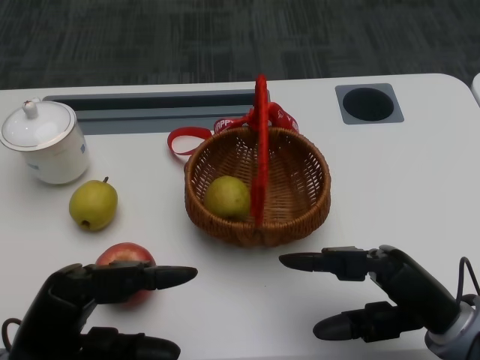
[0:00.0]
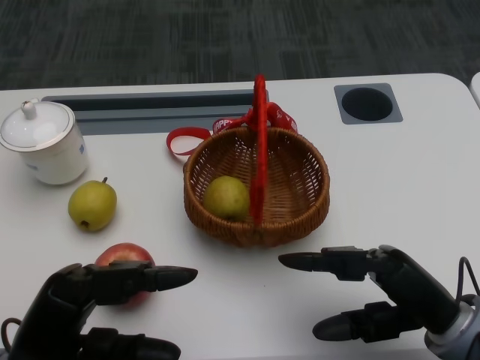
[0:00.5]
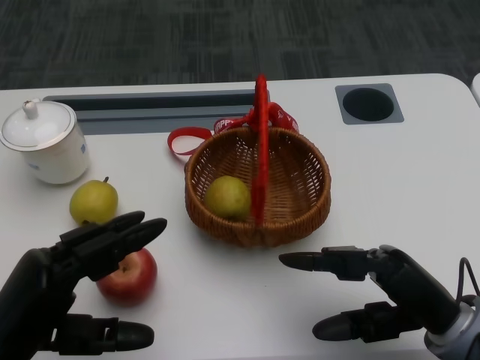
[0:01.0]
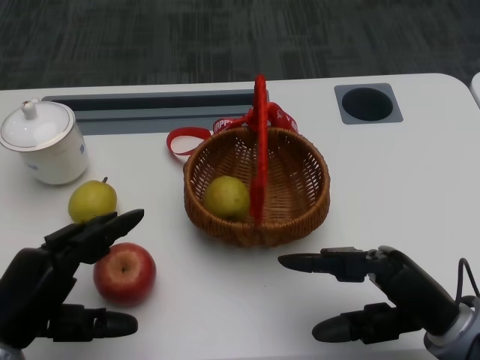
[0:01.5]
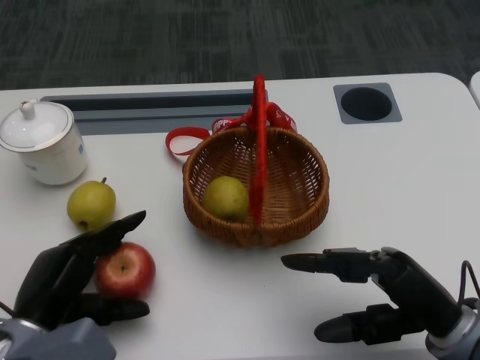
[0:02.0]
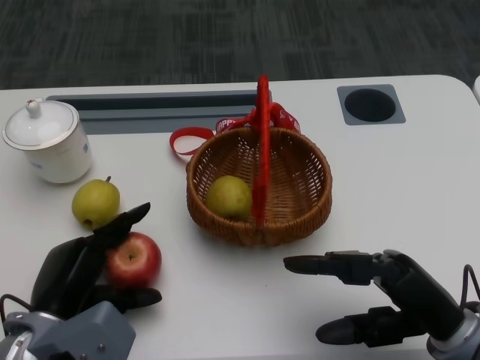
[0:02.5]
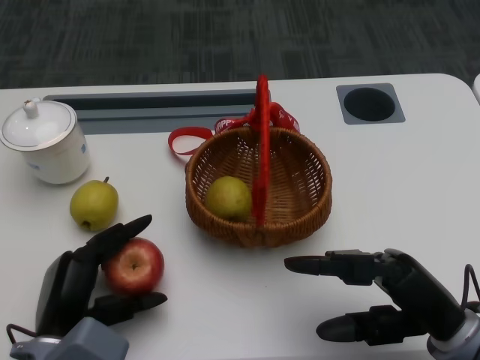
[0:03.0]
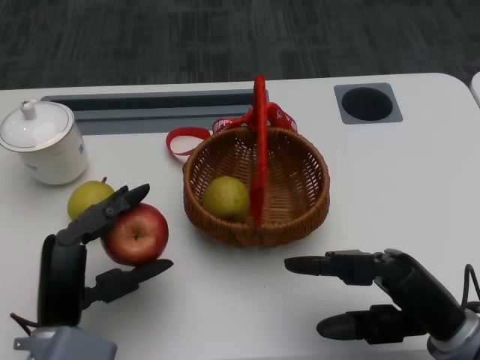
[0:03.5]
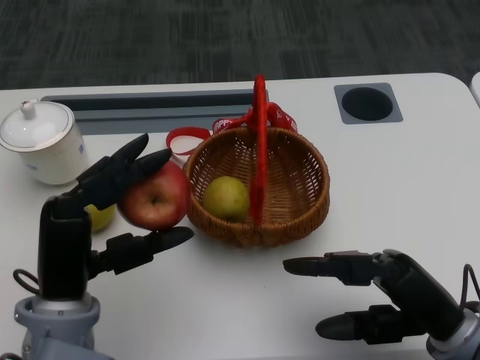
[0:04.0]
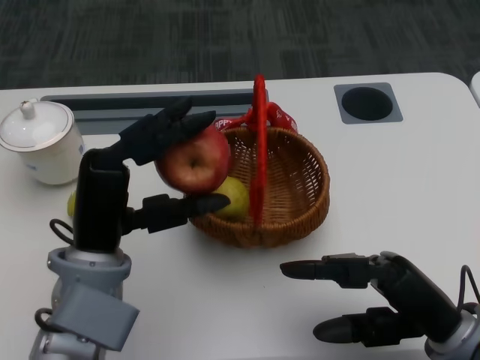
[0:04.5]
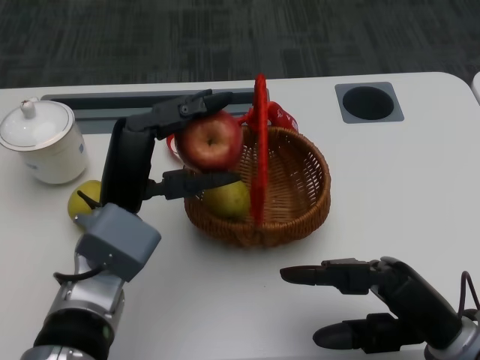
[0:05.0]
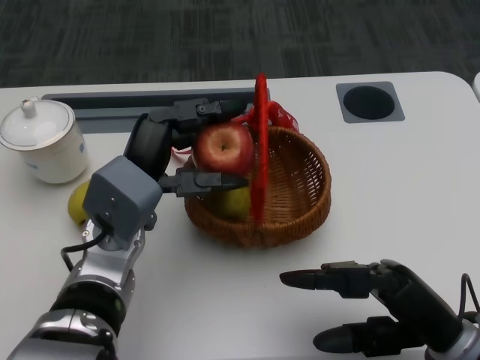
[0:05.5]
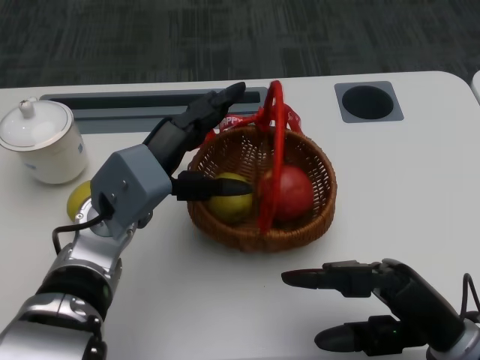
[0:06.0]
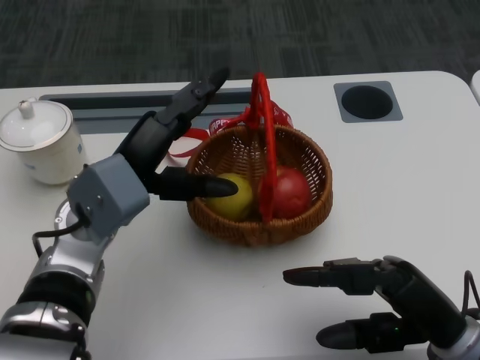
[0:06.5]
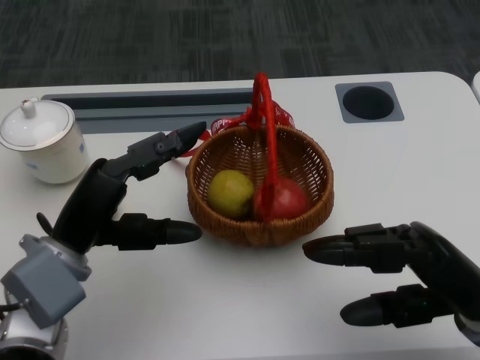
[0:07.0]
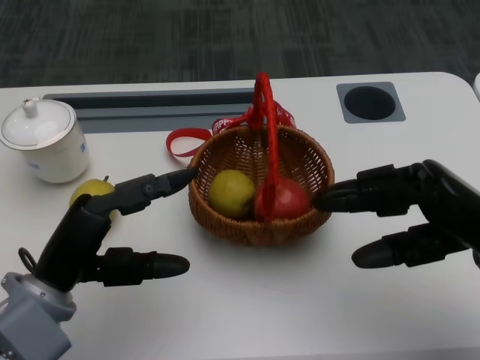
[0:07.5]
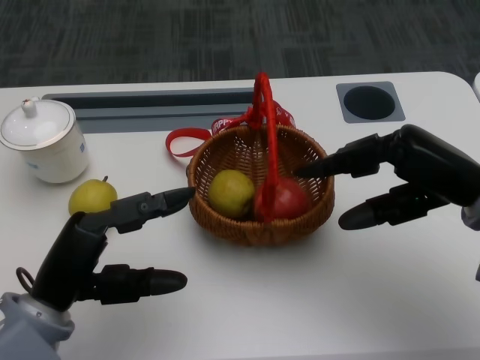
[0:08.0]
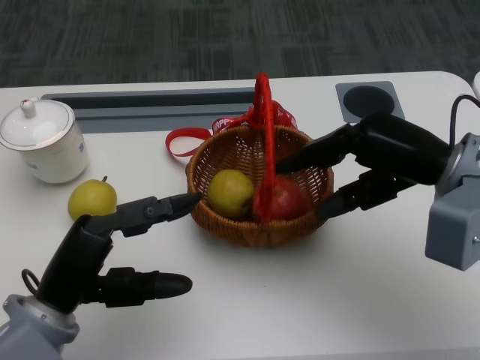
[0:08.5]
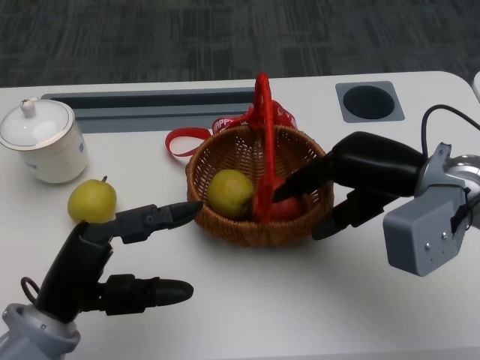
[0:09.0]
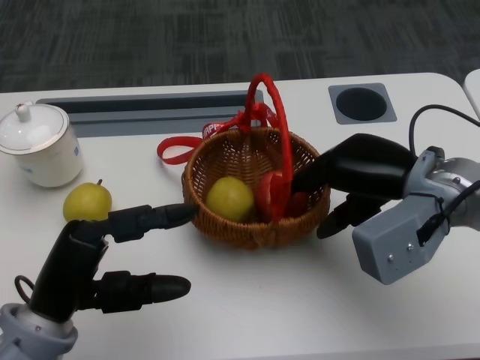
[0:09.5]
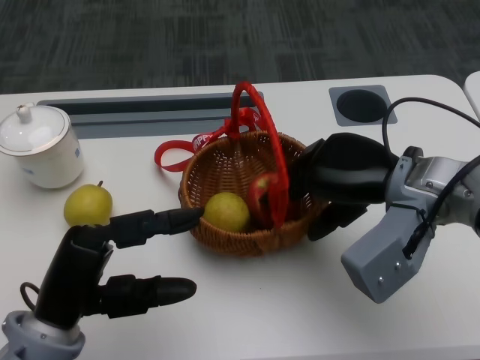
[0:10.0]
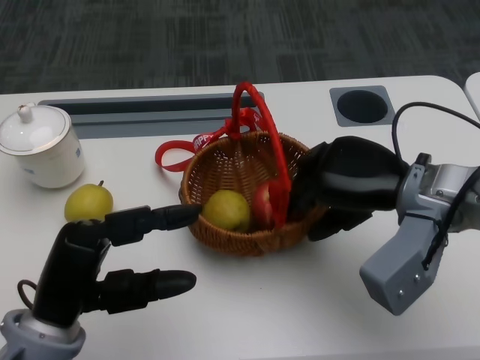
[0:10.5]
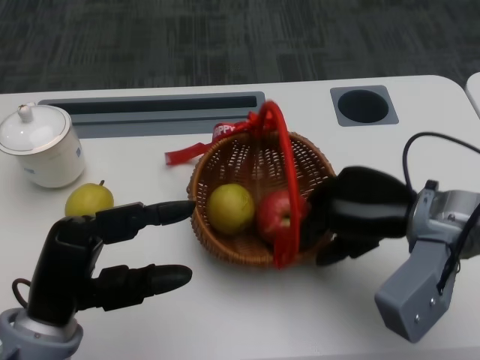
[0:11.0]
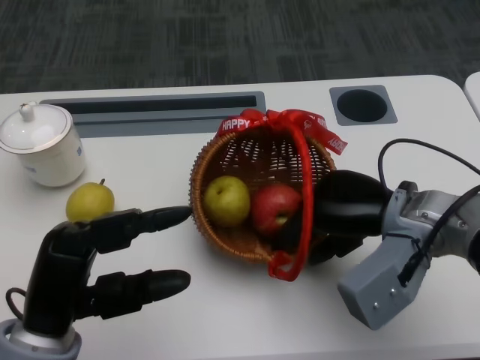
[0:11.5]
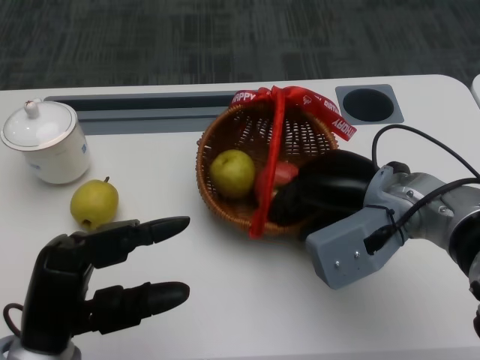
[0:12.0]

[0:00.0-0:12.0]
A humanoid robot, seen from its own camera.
Step, 0:01.0 to 0:02.0: Grasp the apple with the left gripper.
Step, 0:02.5 to 0:04.5: Place the apple into the basket with the left gripper.
Step, 0:05.0 to 0:08.5: Grasp the basket with the right gripper.
Step, 0:09.0 to 0:11.0: Move the basket to the front of the table with the right gripper.
0:02.0 to 0:04.0: The left hand shifts roughly 10 cm to the right and upward.
0:04.0 to 0:06.0: The left hand shifts roughly 10 cm forward.
0:06.0 to 0:08.0: The right hand heads forward and upward, covering about 15 cm. The left hand travels backward and to the left by some 10 cm.
0:08.0 to 0:10.0: The right hand travels to the left by roughly 5 cm.

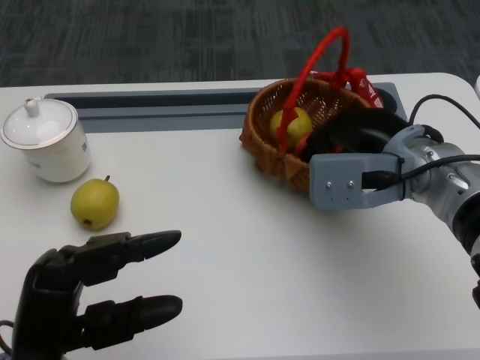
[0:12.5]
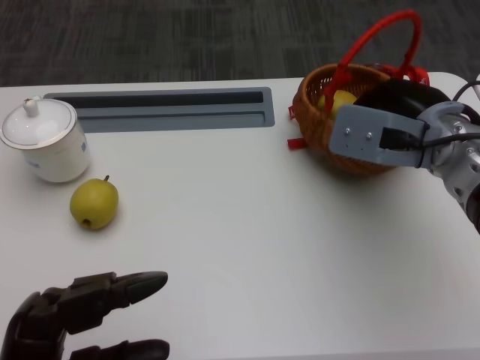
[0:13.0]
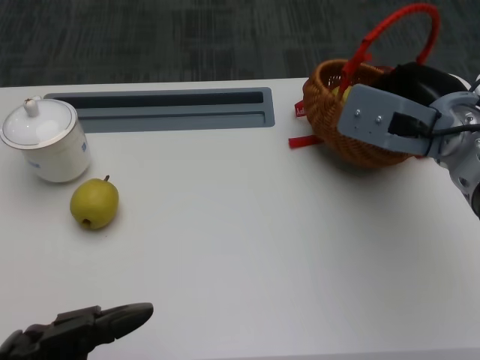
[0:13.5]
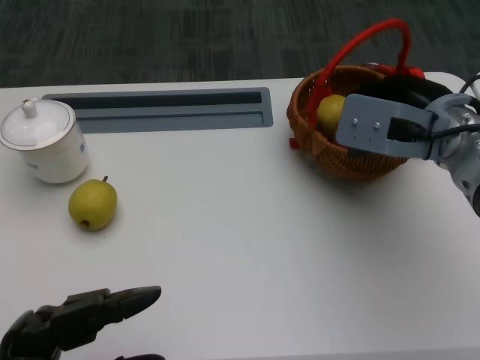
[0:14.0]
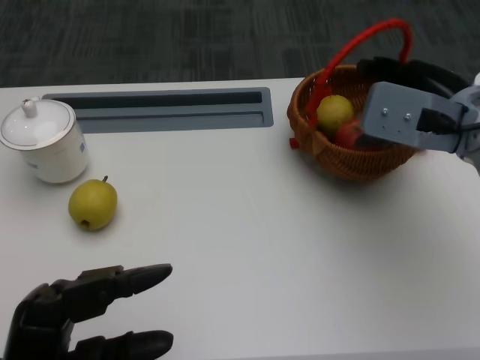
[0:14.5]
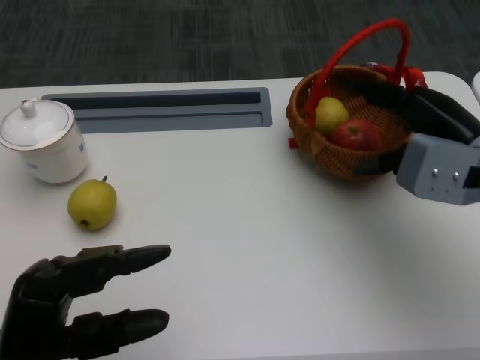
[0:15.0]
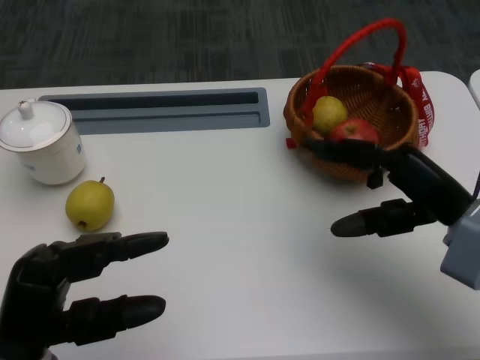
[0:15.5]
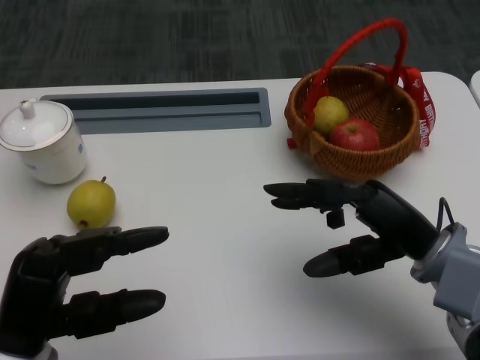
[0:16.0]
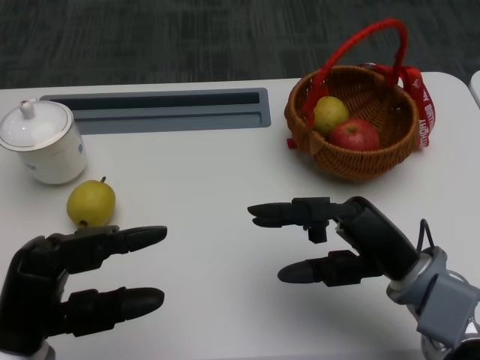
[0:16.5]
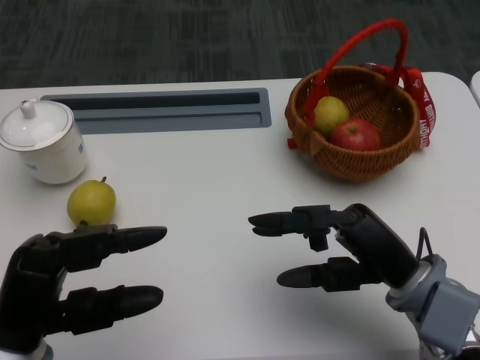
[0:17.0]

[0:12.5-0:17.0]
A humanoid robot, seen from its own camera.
0:12.5 to 0:14.5: The right hand changes place by some 5 cm.
0:14.5 to 0:17.0: The right hand moves backward and downward, about 15 cm.
